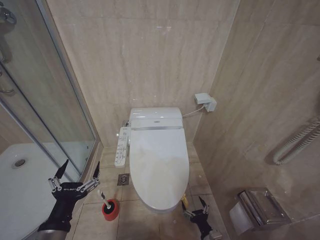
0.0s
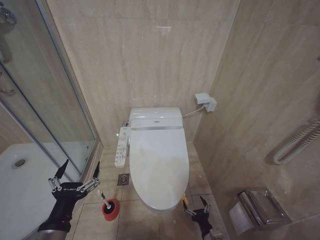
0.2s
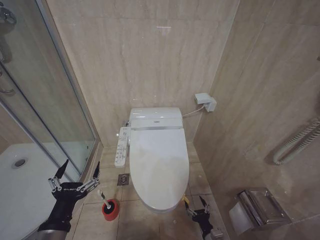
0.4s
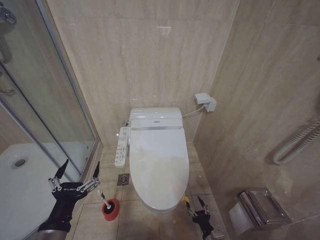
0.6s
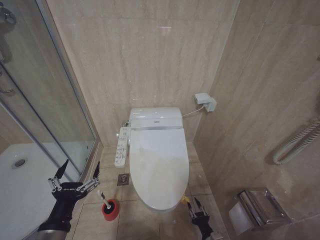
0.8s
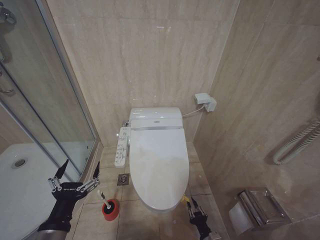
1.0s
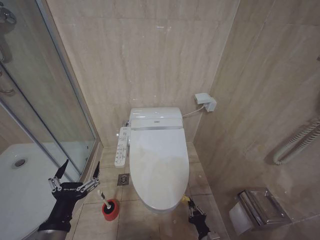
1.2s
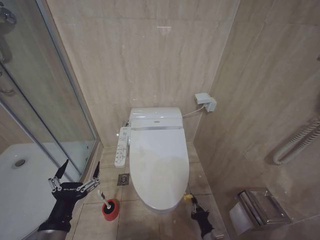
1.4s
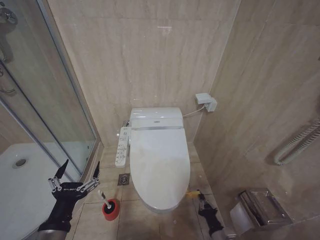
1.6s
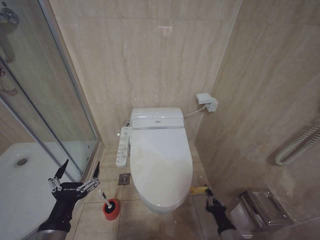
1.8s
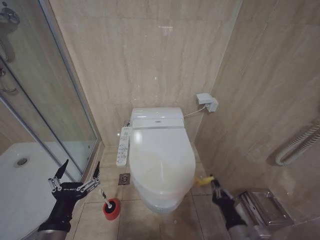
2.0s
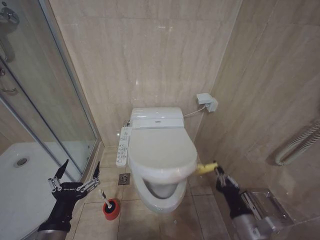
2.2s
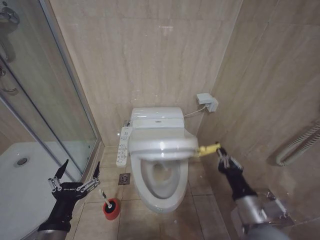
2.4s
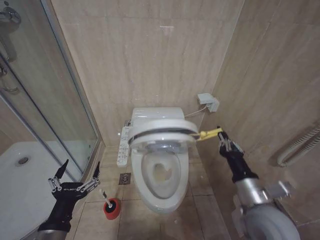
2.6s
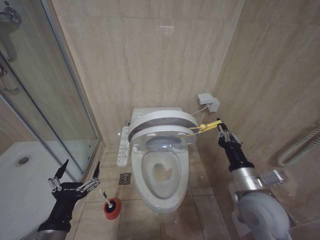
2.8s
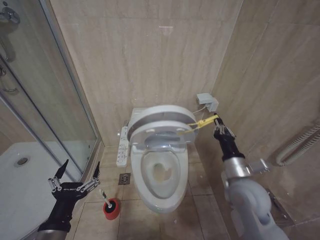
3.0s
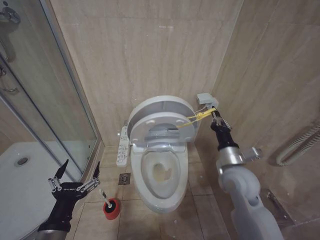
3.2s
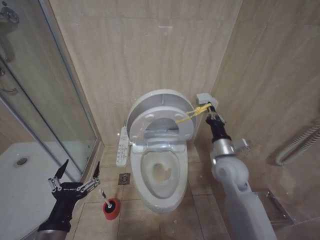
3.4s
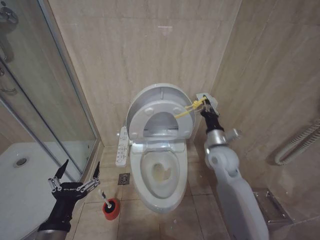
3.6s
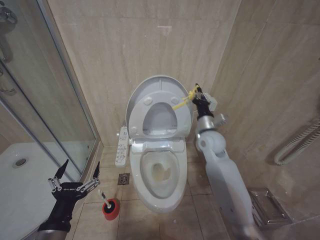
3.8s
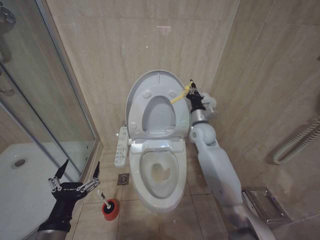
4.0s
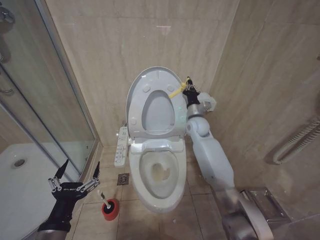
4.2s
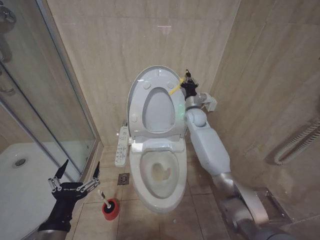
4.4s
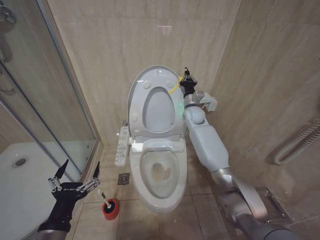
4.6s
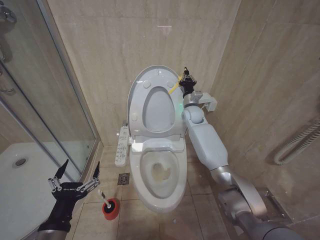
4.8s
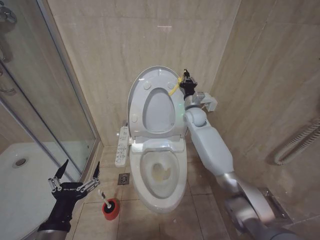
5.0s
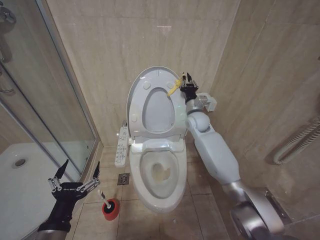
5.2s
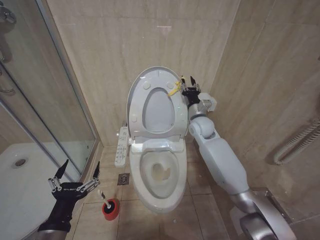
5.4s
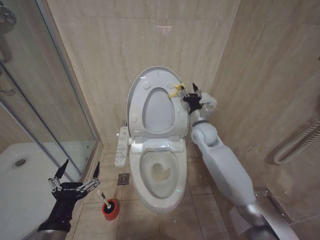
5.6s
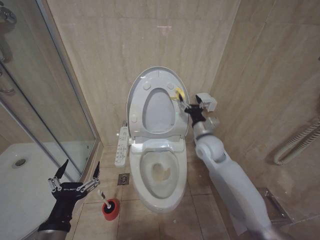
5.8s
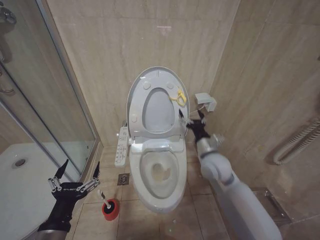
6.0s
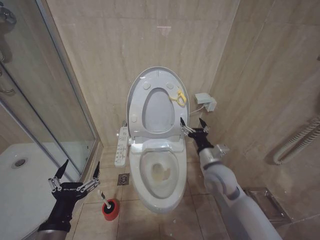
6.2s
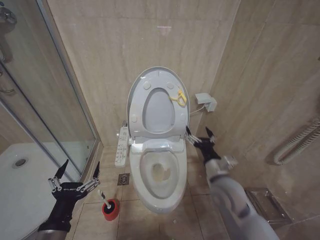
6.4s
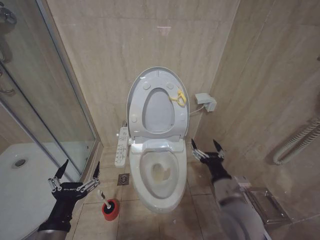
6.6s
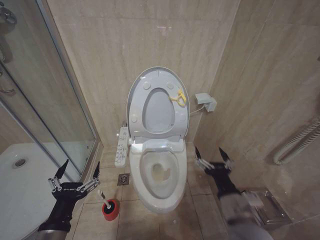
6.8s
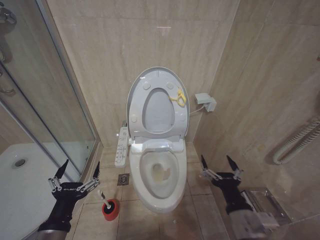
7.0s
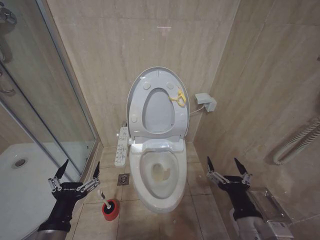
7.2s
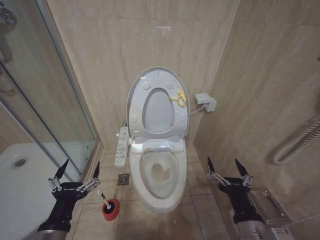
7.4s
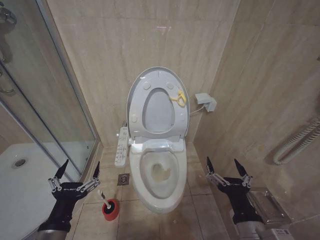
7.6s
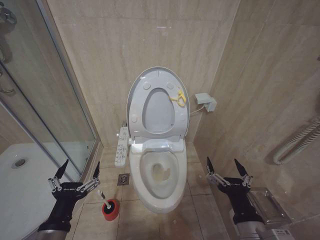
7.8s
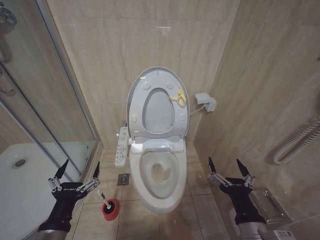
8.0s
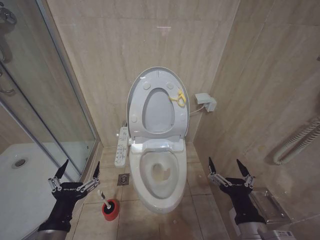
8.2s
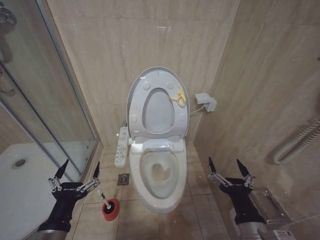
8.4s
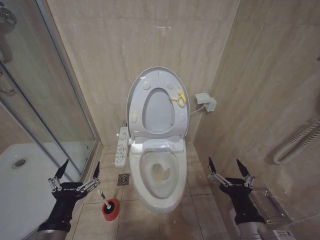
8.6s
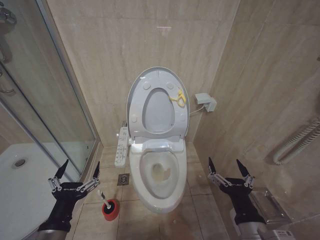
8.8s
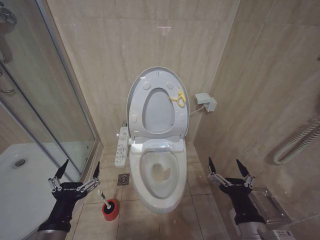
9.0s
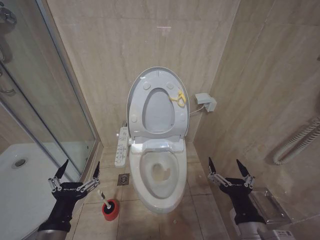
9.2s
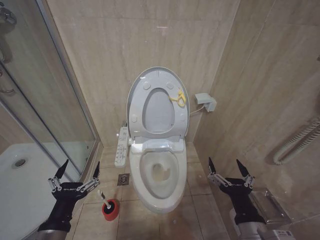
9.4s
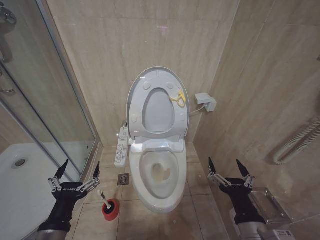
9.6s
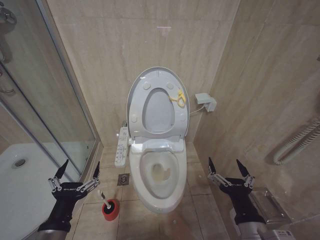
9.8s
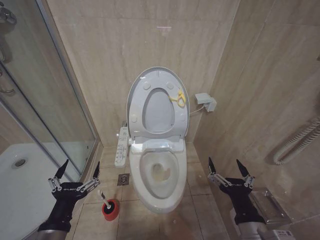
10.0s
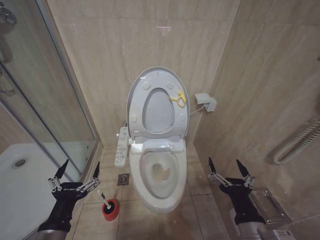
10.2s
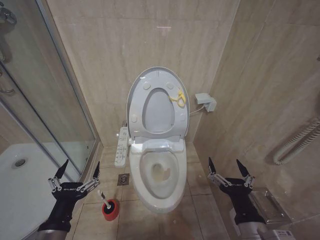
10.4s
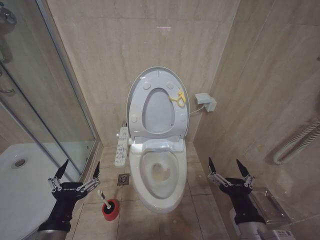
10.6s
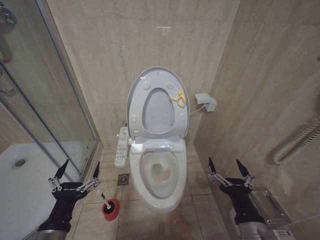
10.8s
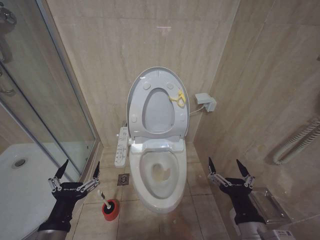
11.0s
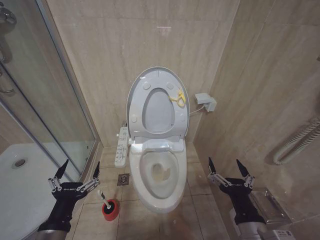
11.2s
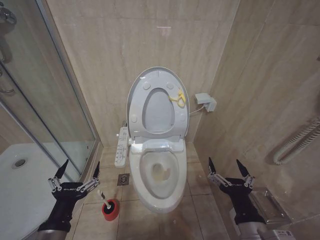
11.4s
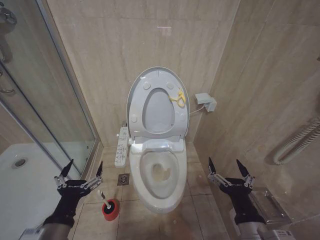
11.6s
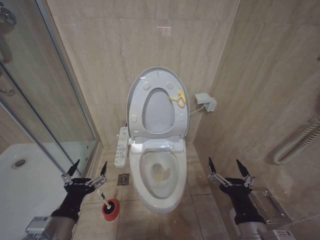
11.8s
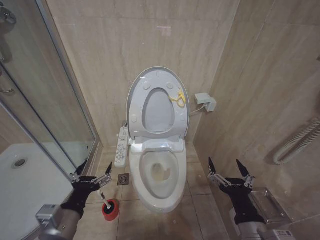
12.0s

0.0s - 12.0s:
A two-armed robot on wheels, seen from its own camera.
Task of the whole recording: Open the toilet lid, clean the toilet bowl with a toilet brush, close the toilet lid, and flush.
0.0s - 1.6s: The right gripper closes its fingers.
1.6s - 3.0s: The right gripper goes roughly 30 cm upward.
3.0s - 4.4s: The right gripper heads forward, covering some 30 cm.
4.4s - 6.0s: The right gripper heads backward, covering roughly 20 cm, and opens up.
6.0s - 7.6s: The right gripper shifts approximately 25 cm backward.
7.6s - 10.4s: Both grippers stay about where they are.
10.4s - 12.0s: The grippers stay close to where they were, moving slightly.

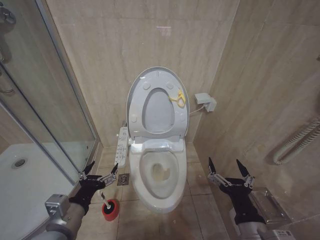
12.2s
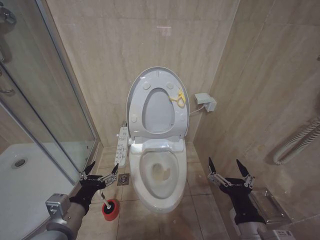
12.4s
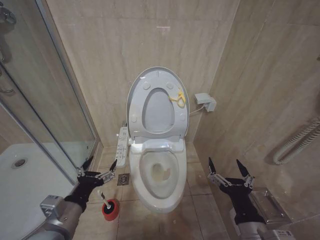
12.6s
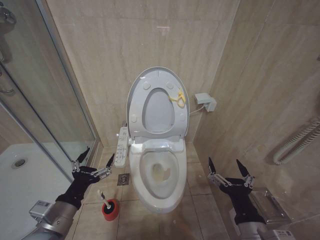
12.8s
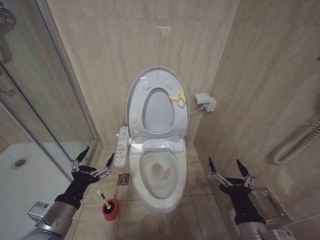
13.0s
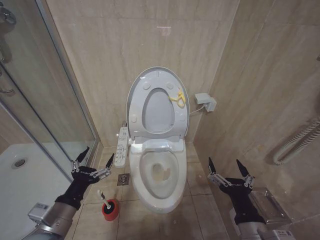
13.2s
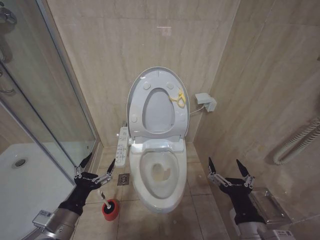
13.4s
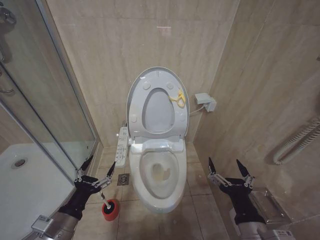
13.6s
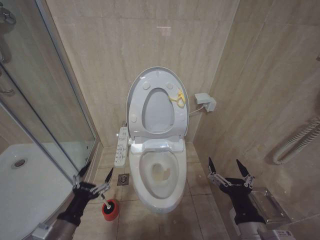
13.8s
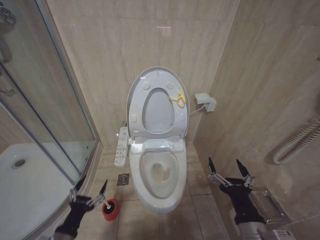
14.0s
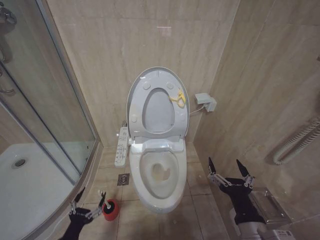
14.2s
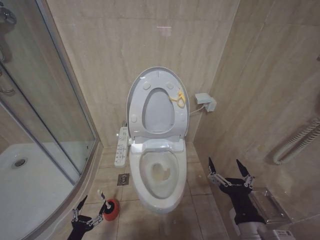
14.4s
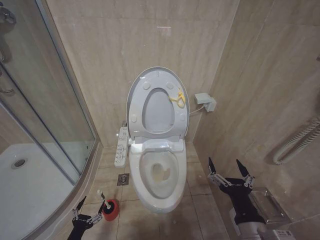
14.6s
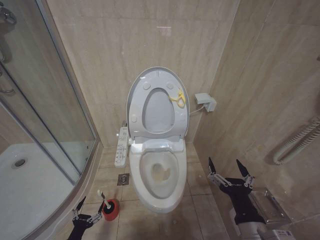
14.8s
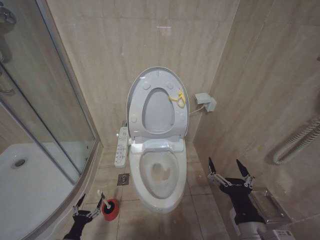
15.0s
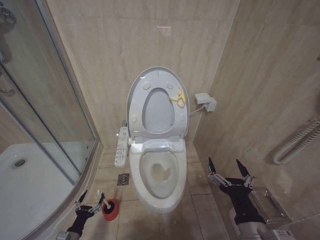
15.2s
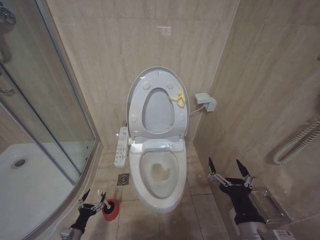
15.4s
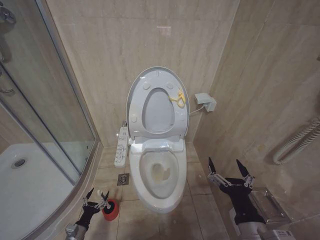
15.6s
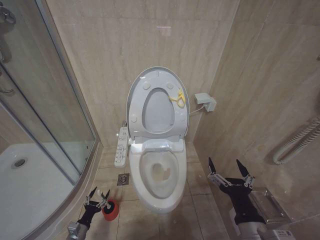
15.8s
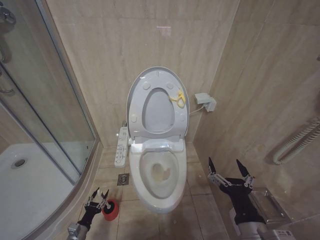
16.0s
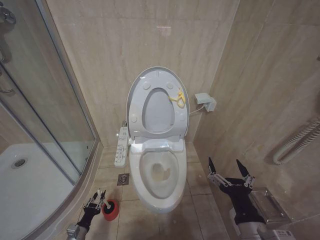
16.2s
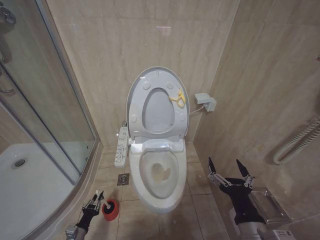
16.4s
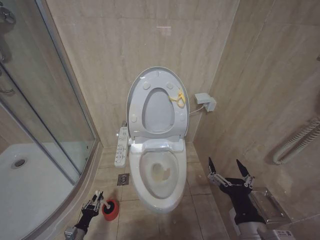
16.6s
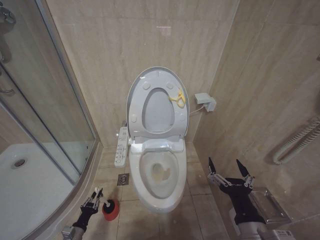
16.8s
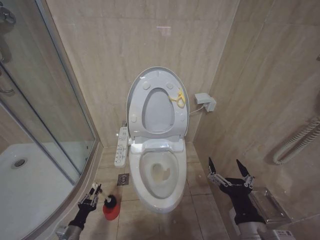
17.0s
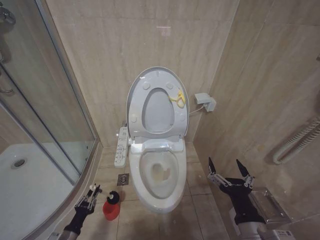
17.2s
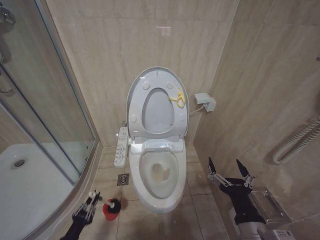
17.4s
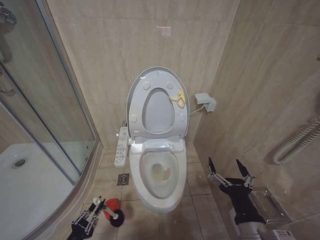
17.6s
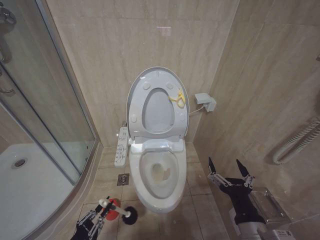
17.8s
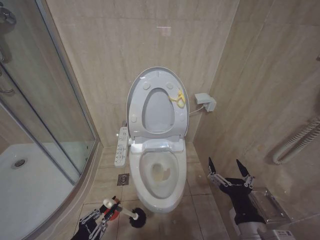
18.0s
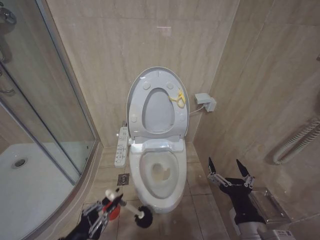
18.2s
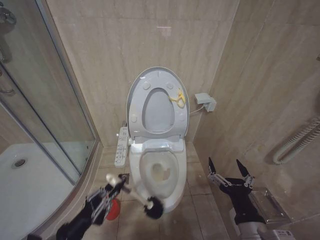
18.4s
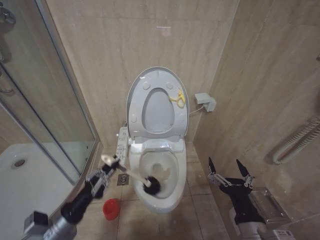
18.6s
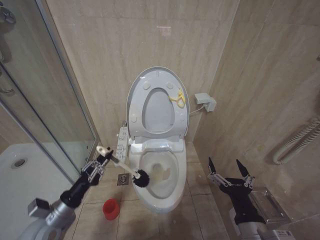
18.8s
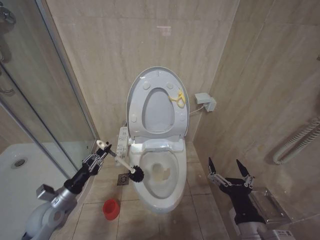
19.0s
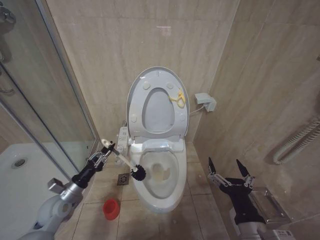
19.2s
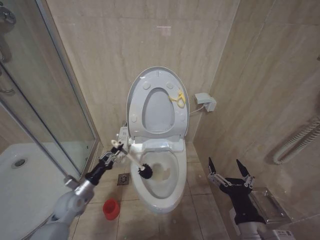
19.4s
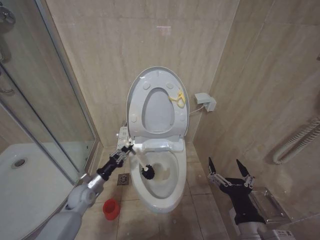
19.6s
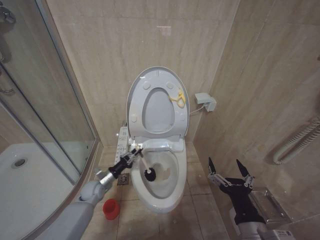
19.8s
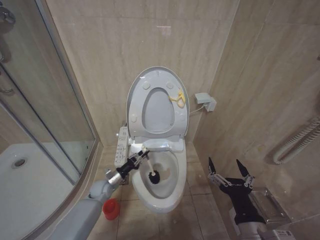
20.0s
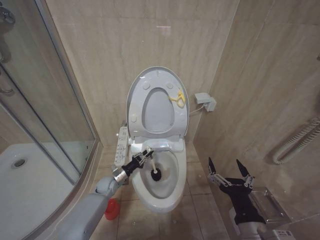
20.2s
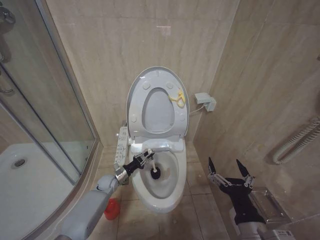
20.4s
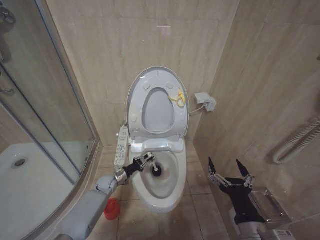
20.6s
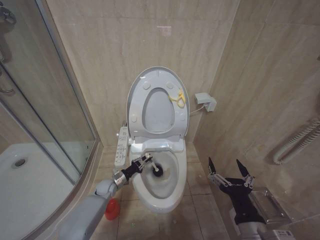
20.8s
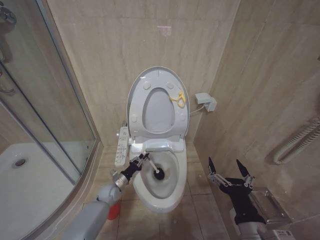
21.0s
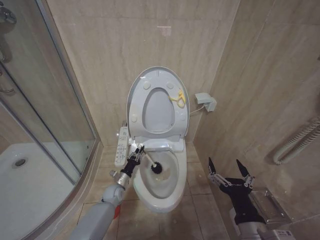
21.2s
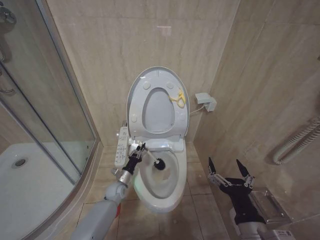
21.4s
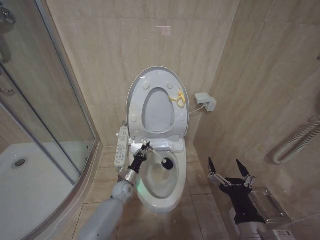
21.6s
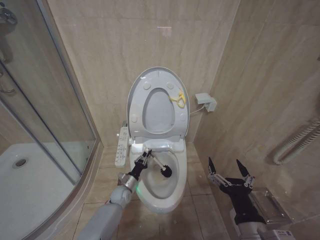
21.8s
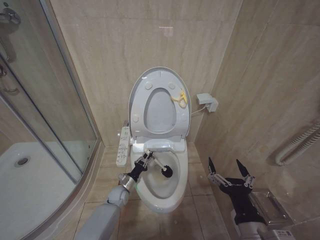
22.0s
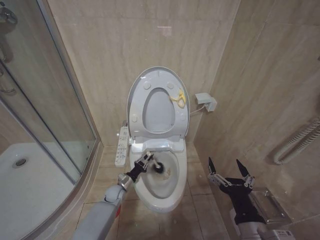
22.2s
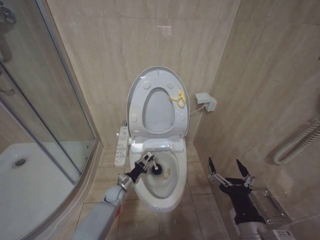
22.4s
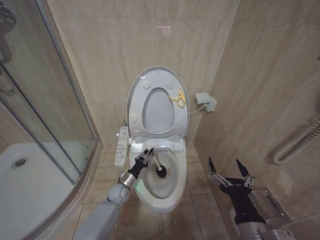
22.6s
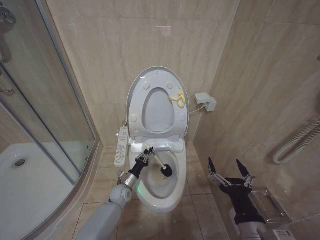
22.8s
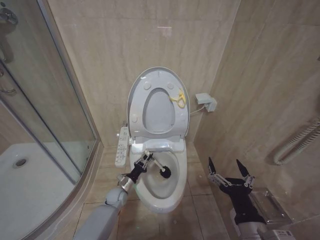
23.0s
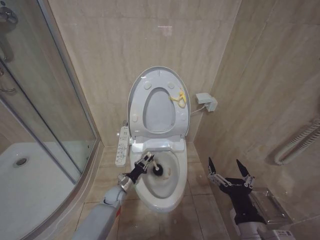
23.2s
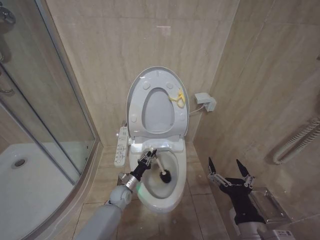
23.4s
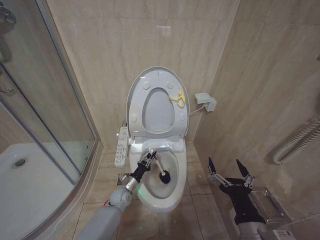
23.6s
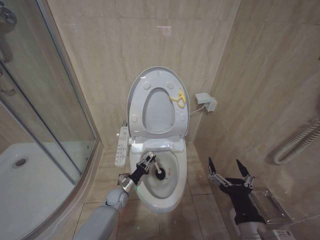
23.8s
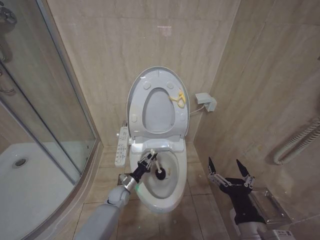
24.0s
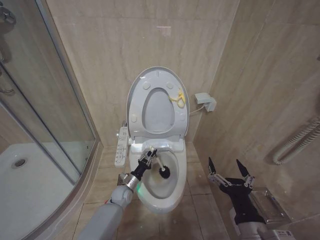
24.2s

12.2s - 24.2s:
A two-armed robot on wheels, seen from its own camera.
Task of the whole recording: Open the toilet lid, clean the toilet bowl with a toilet brush, close the toilet lid, and flush.
12.2s - 13.8s: The left gripper goes some 5 cm downward.
13.8s - 15.2s: The left gripper travels downward by about 30 cm.
15.2s - 16.6s: The left gripper closes.
16.6s - 18.2s: The left gripper shifts some 25 cm upward and backward.
18.2s - 19.8s: The left gripper shifts some 30 cm forward.
19.8s - 21.2s: The left gripper moves downward and to the right, some 10 cm.
22.6s - 24.2s: The grippers move only a little.
